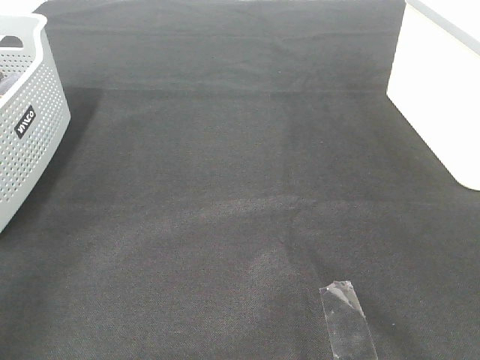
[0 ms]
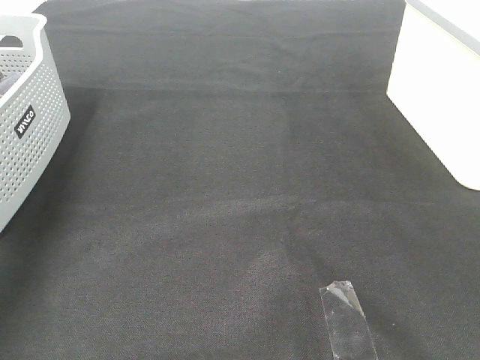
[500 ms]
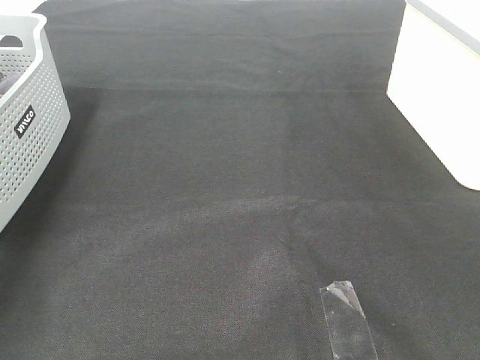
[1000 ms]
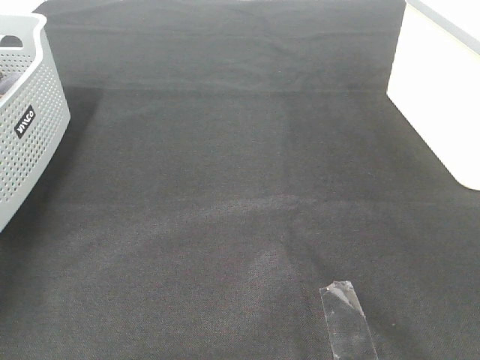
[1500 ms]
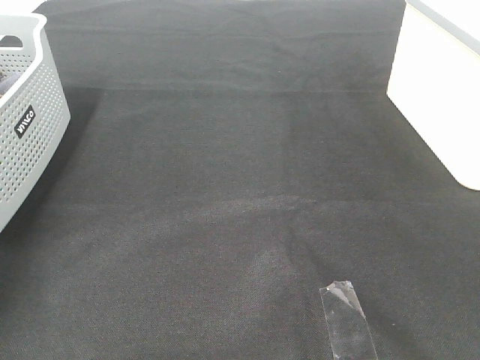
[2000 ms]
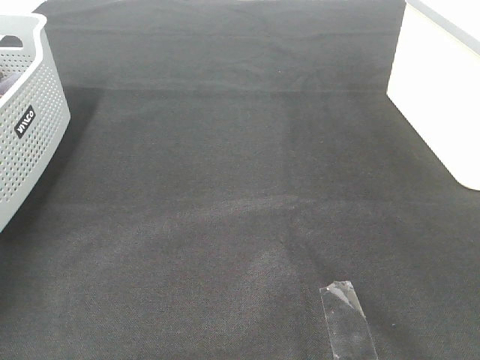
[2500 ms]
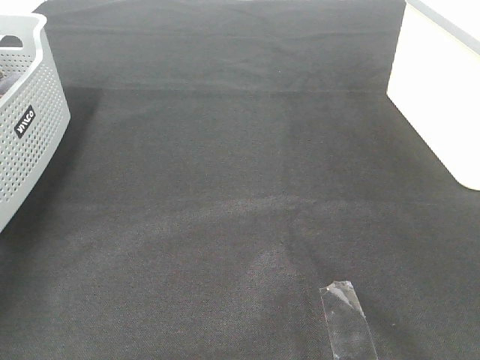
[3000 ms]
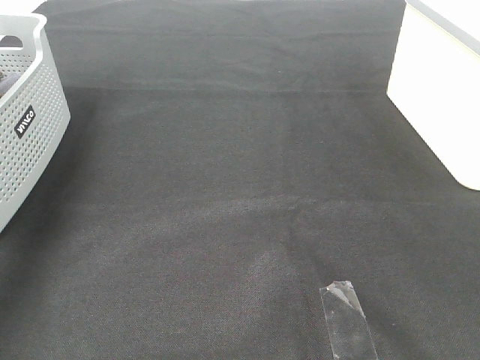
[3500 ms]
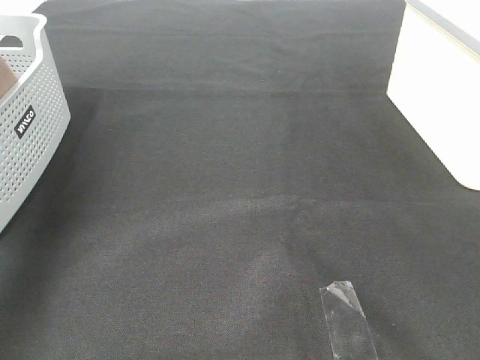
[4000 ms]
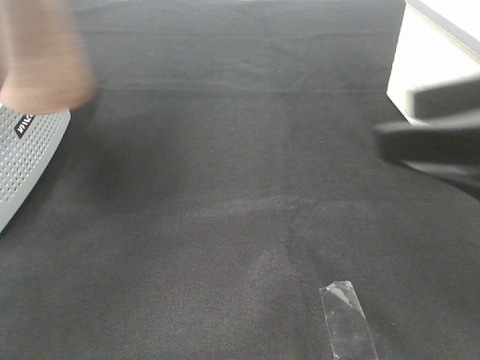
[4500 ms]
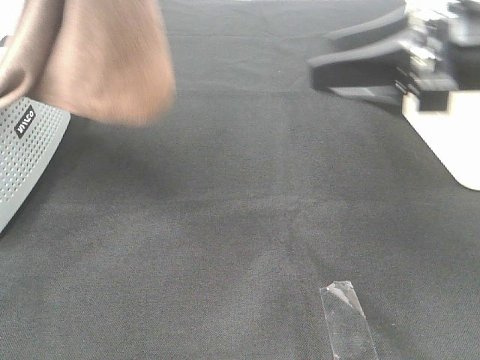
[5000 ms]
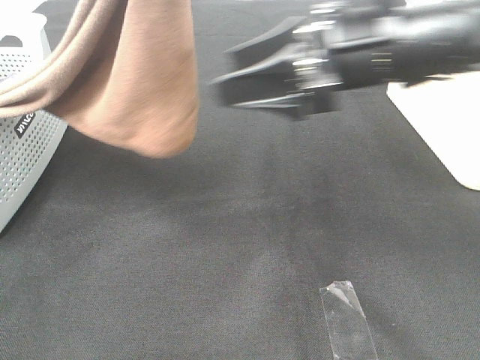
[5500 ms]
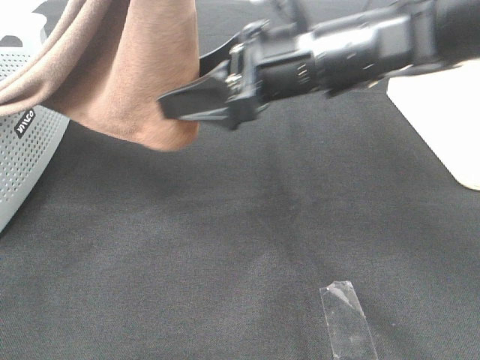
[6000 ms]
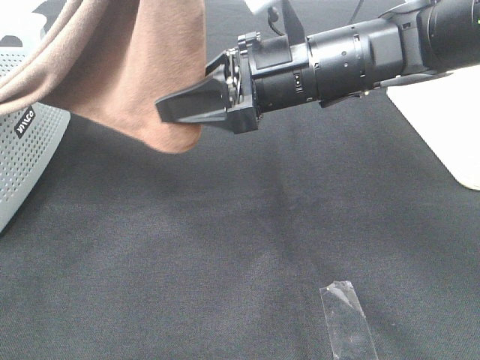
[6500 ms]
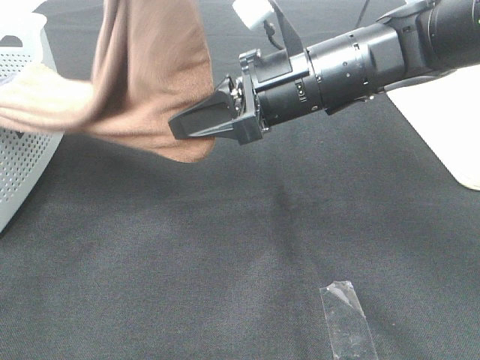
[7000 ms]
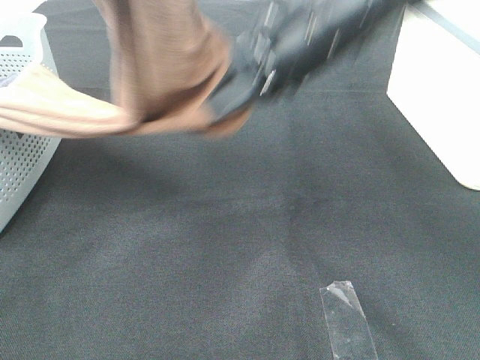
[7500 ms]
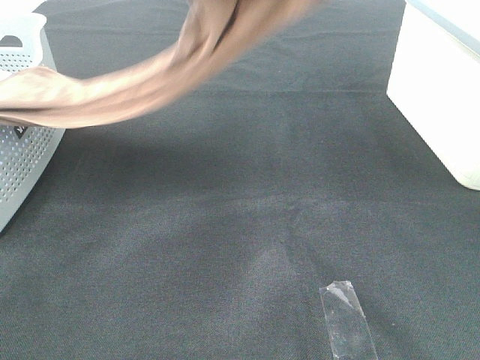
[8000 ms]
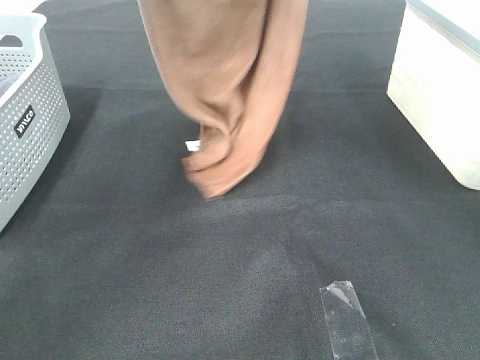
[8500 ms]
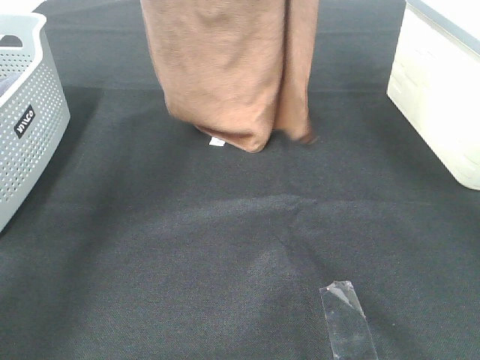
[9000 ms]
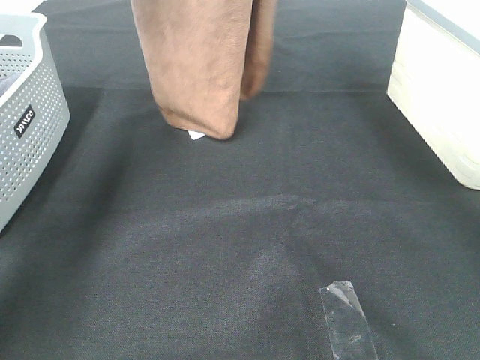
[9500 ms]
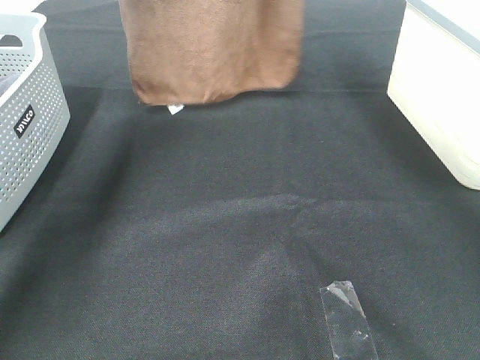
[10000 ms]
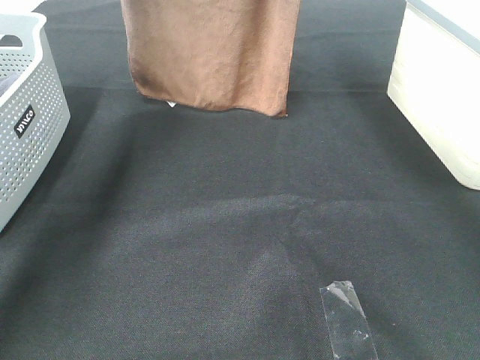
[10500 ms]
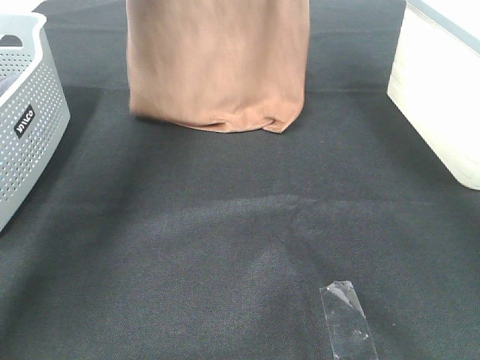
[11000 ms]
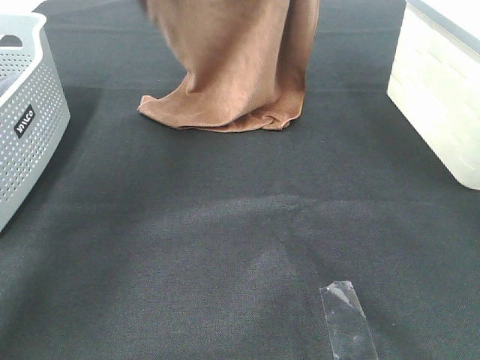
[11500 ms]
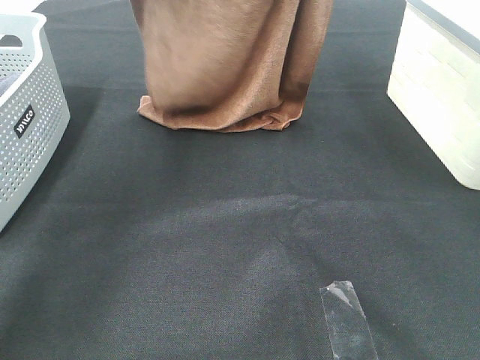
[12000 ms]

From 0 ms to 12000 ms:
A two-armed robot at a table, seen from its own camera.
Task of the whole recording: Remove the towel and place it.
Step, from 4000 ms to 7500 ms: Right hand: grab a corner of the brown towel and straighten it.
From 0 ms to 2000 ms: The left gripper heads forward and downward, covering some 40 cm, and closes.
From 2000 ms to 4000 ms: The left gripper shifts about 30 cm upward and backward, and closes up.
From 4000 ms to 6000 ms: The right gripper heads forward and to the left, covering approximately 35 cm. The left gripper shifts about 20 cm to the right.
From 6000 ms to 8000 ms: The left gripper is displaced forward by approximately 10 cm. The right gripper is displaced upward by roughly 20 cm, and closes.
From 8000 ms to 10000 ms: The left gripper shifts roughly 20 cm forward and to the left. The right gripper travels forward by roughly 15 cm.
From 10000 ms to 12000 ms: The grippers both shift backward by some 10 cm.

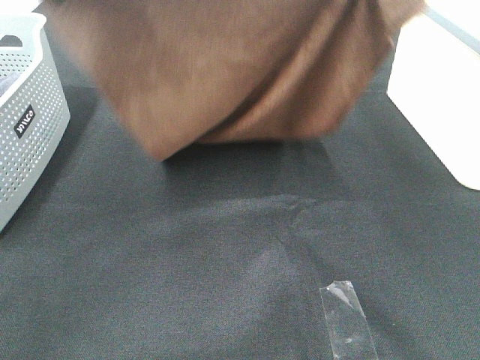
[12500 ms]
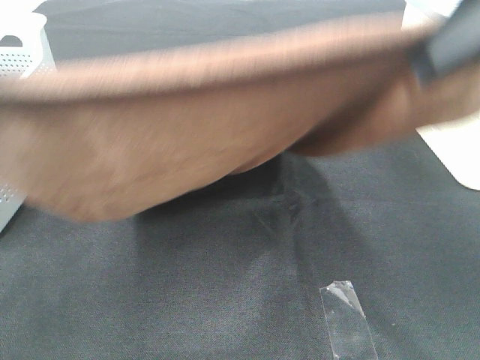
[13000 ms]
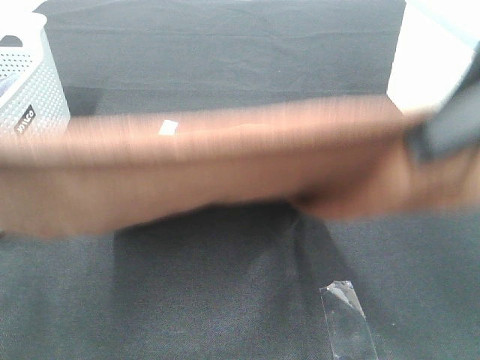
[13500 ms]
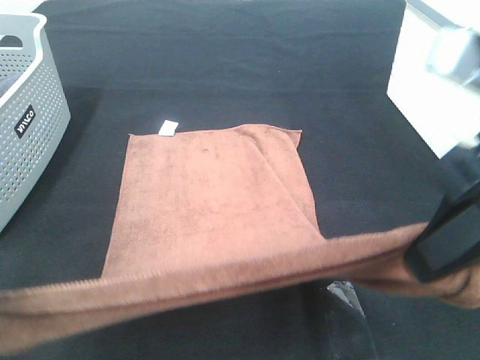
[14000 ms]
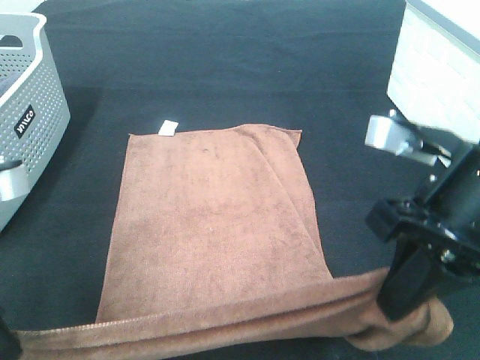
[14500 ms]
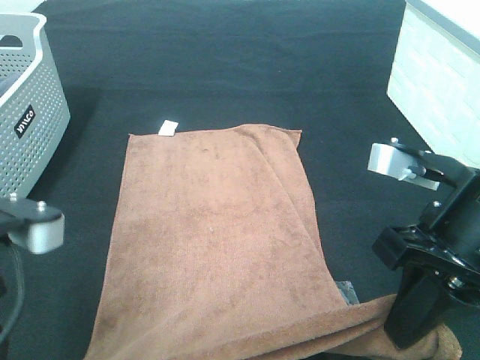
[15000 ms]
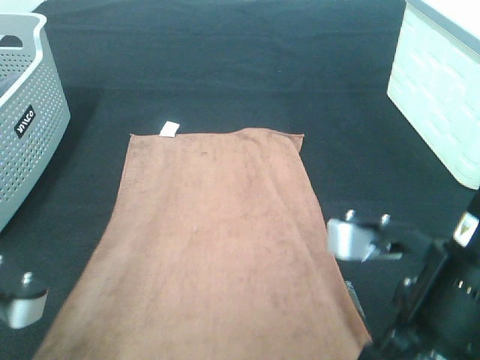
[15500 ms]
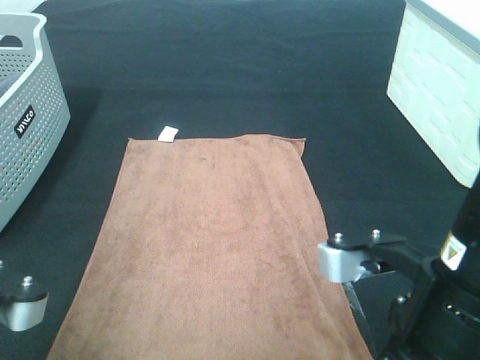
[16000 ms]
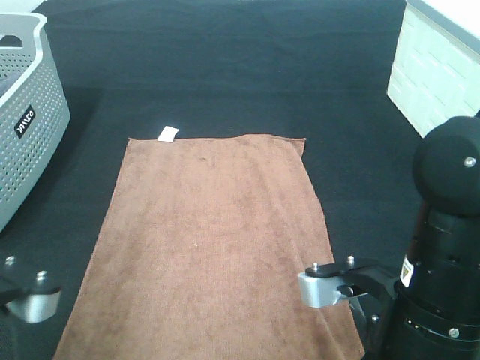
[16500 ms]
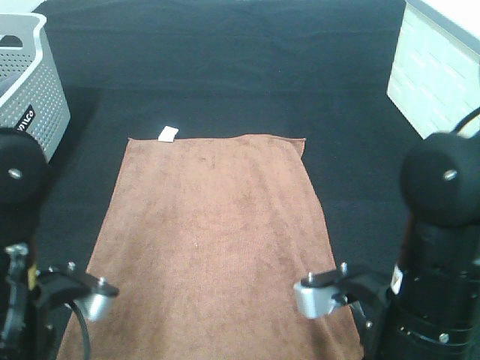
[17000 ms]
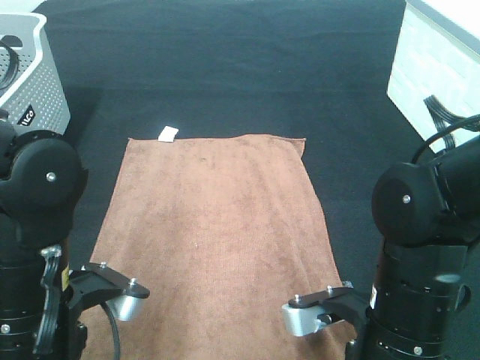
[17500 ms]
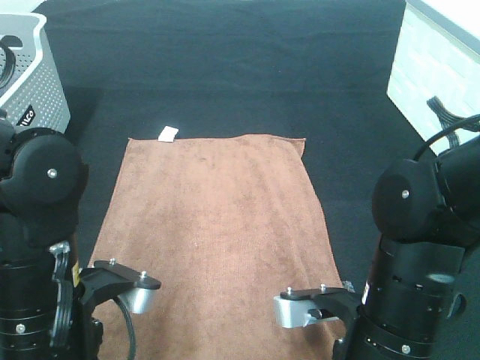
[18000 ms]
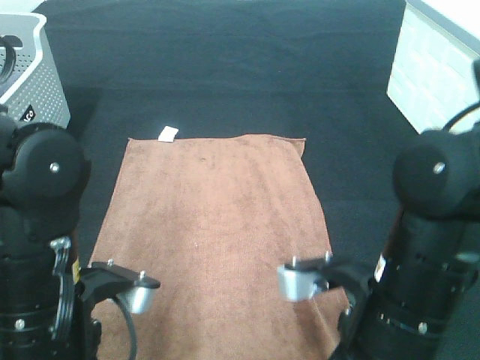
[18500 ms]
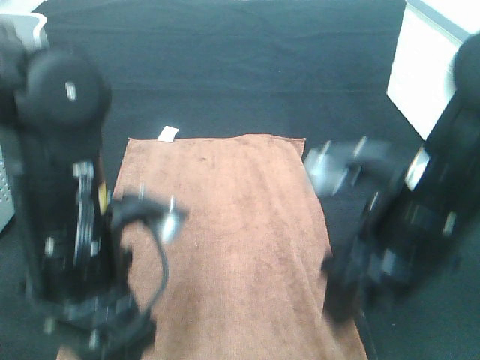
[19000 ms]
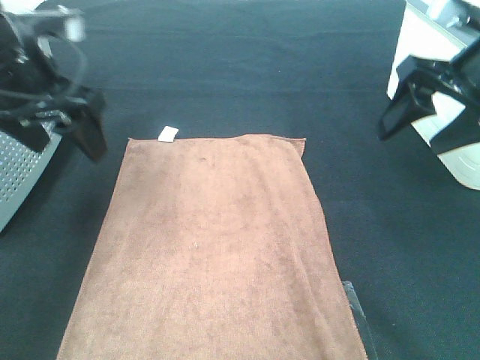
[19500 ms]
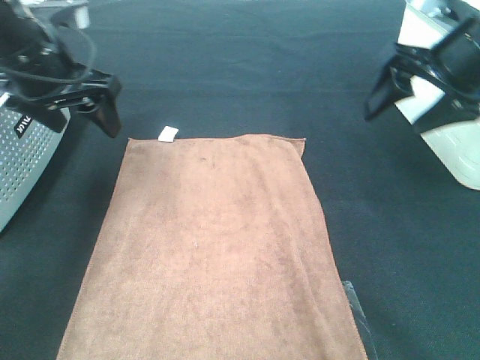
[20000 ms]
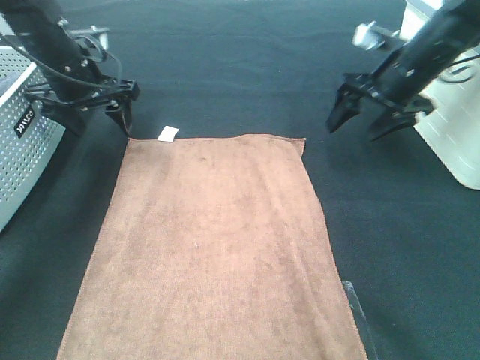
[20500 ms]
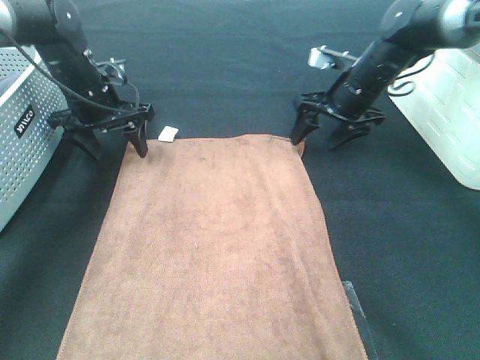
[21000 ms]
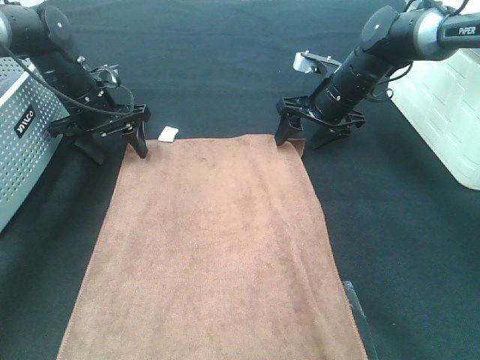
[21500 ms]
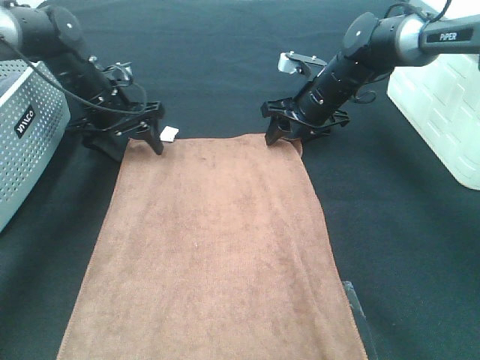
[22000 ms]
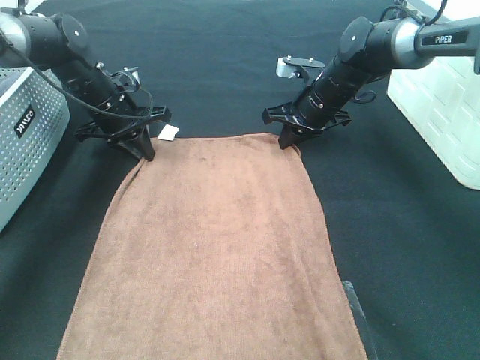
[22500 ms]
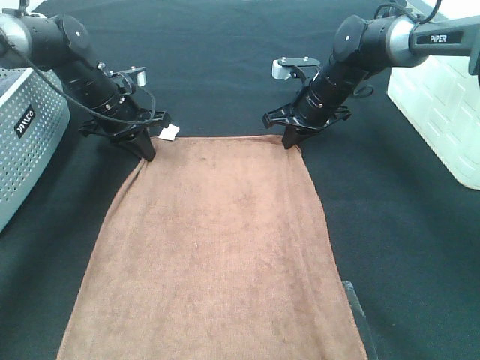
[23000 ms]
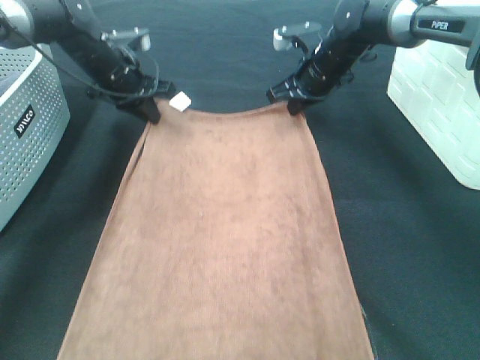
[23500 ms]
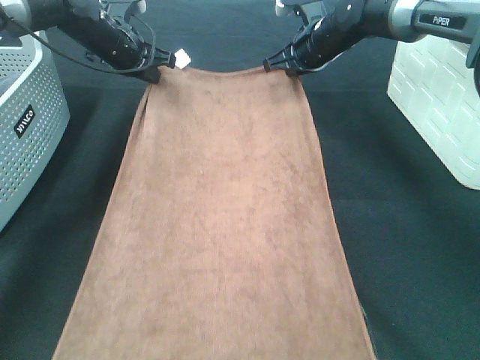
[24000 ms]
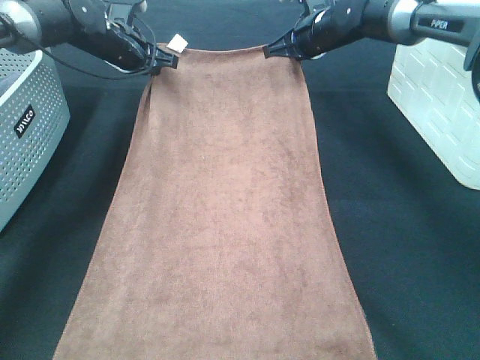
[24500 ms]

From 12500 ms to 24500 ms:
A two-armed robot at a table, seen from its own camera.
Task of the whole recording: Remove the towel and place it.
Step, from 14000 ms to 22500 ms: Left hand:adjust the brown towel.
Step, from 14000 ms to 22500 ms: Right hand:adjust the brown towel.
From 12500 ms to 14500 ms: The two grippers go about 20 cm downward and backward.
From 14500 ms to 16500 ms: The left gripper moves some 5 cm. Meanwhile the right gripper shifts about 10 cm downward and backward.
From 16500 ms to 18500 ms: The right gripper opens. Meanwhile the left gripper shifts approximately 5 cm to the right, and opens.
From 18500 ms to 20500 ms: The grippers both shift forward by roughly 30 cm.
From 20500 ms to 22500 ms: The left gripper goes some 5 cm downward, and closes up, while the right gripper moves to the left and downward, roughly 10 cm, and closes.
From 22500 ms to 24500 ms: The right gripper travels upward and forward by some 10 cm. Meanwhile the left gripper is displaced forward and upward by approximately 10 cm.

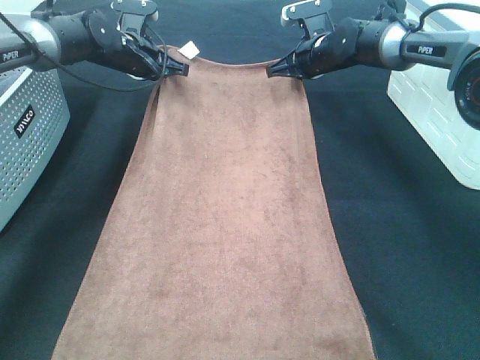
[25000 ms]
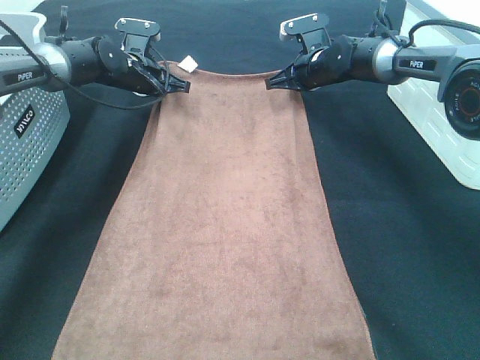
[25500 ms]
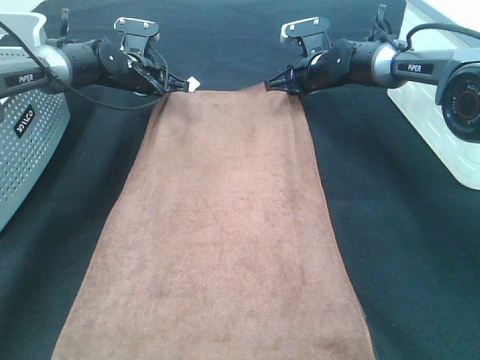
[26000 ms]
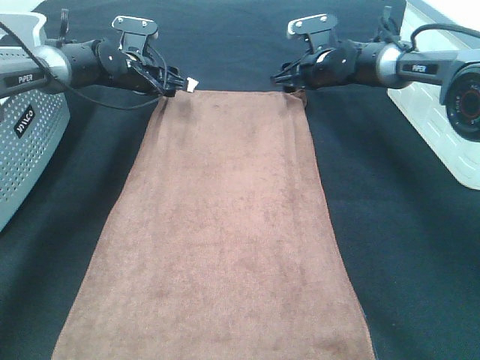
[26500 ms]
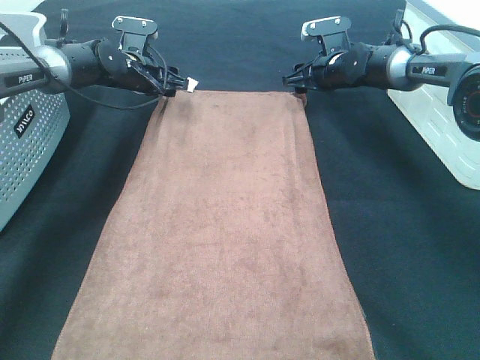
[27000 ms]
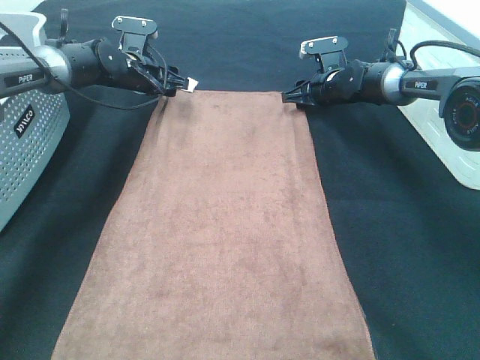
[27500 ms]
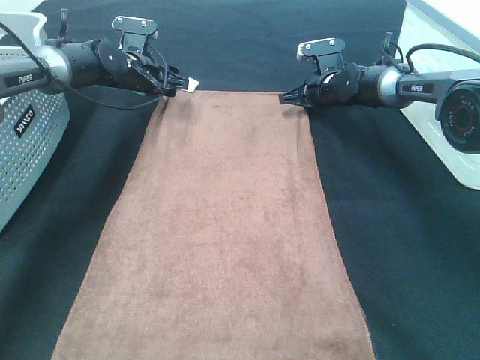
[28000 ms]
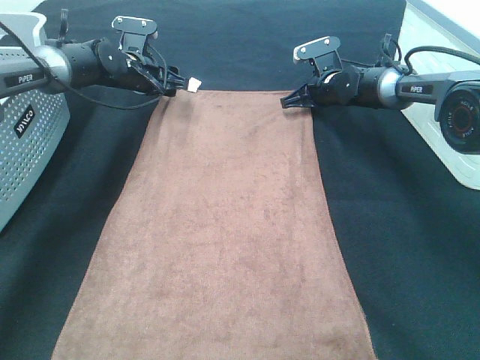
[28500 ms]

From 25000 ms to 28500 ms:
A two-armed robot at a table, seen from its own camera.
Task of the whole recording: Remove the towel and place it.
From 25000 ms to 27000 ms: The left gripper opens. The right gripper changes place by some 5 cm, and opens its fingers.
From 27000 ms to 28500 ms: The right gripper closes up.
